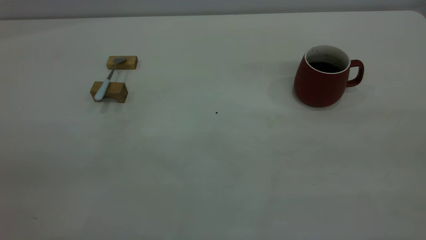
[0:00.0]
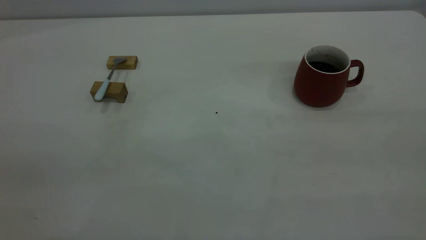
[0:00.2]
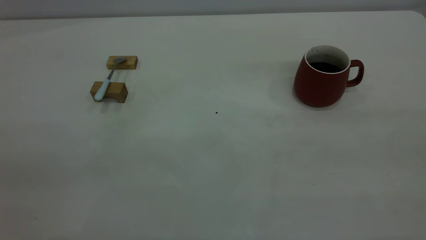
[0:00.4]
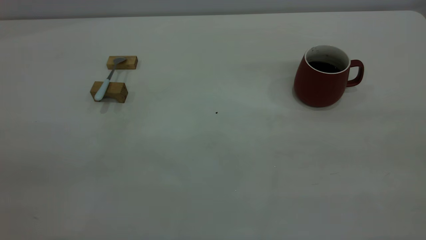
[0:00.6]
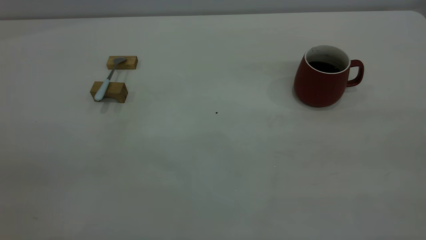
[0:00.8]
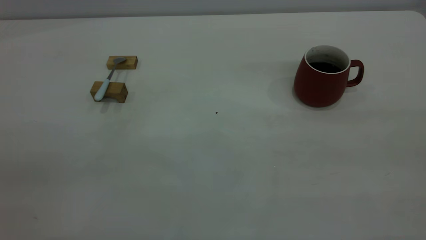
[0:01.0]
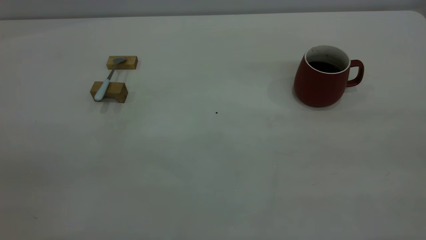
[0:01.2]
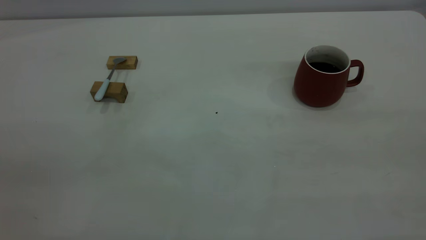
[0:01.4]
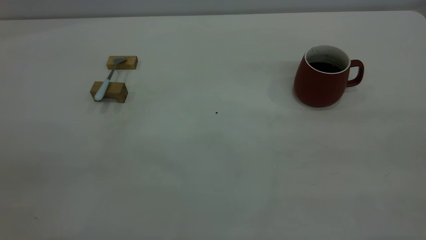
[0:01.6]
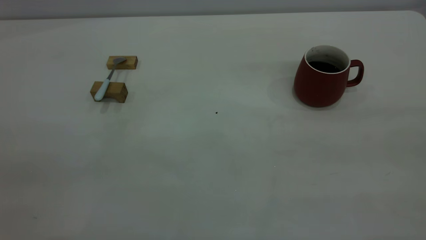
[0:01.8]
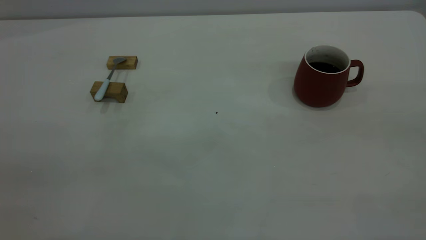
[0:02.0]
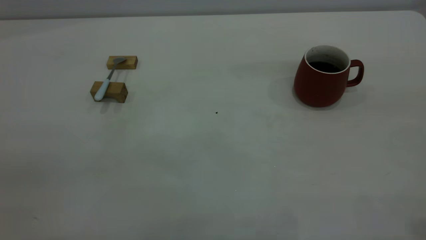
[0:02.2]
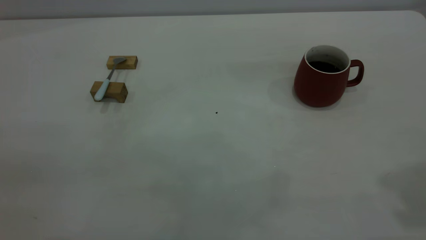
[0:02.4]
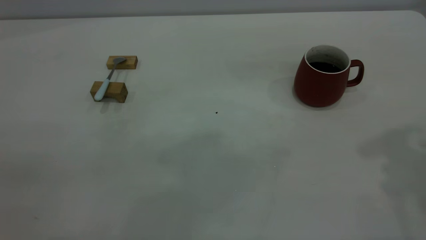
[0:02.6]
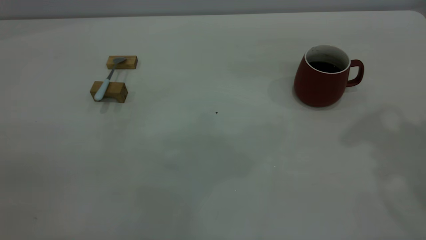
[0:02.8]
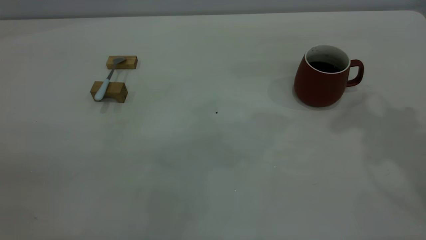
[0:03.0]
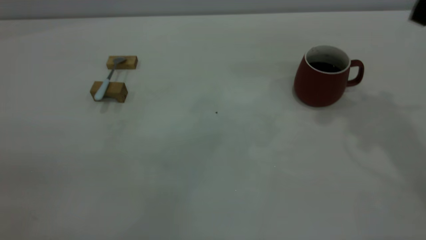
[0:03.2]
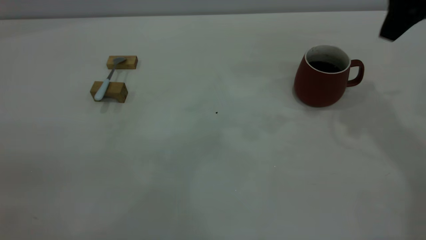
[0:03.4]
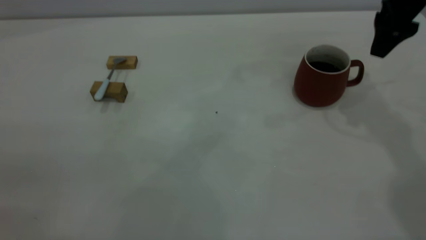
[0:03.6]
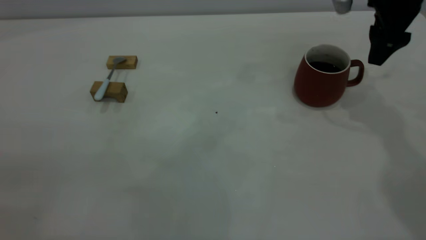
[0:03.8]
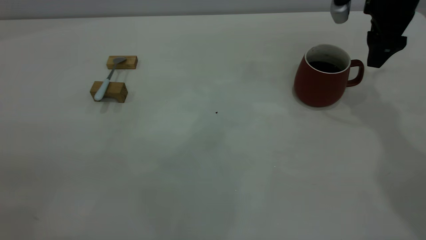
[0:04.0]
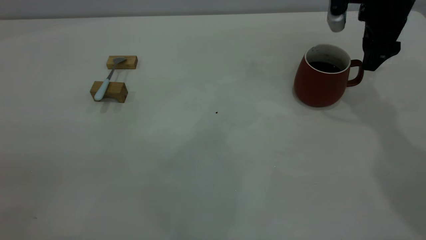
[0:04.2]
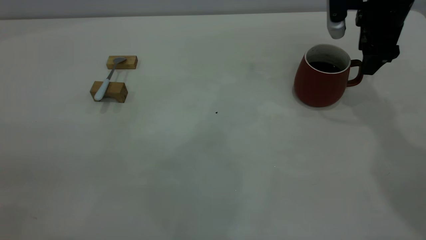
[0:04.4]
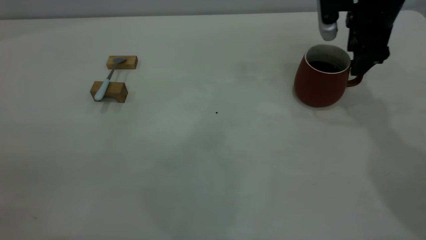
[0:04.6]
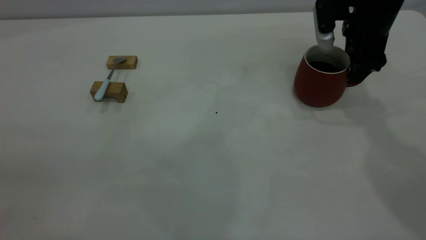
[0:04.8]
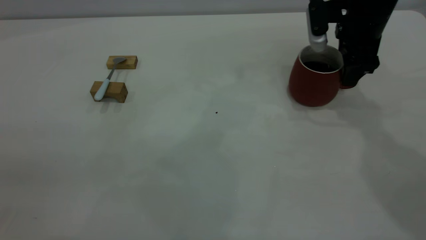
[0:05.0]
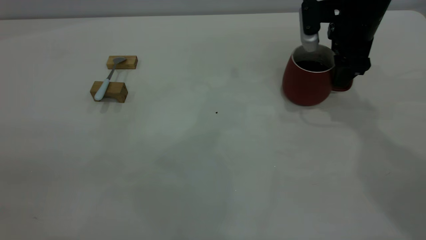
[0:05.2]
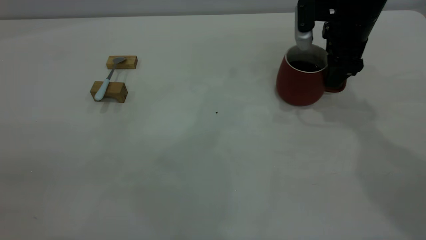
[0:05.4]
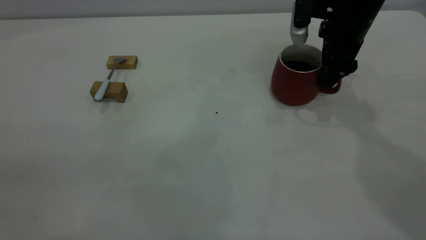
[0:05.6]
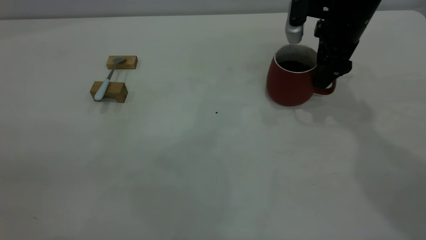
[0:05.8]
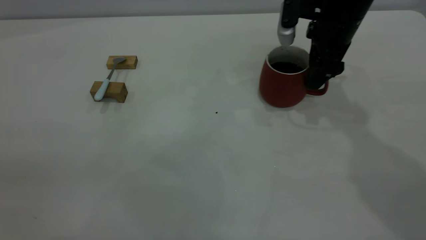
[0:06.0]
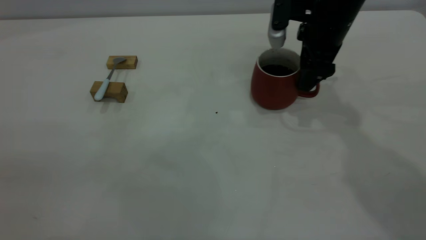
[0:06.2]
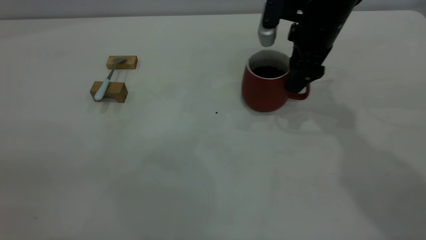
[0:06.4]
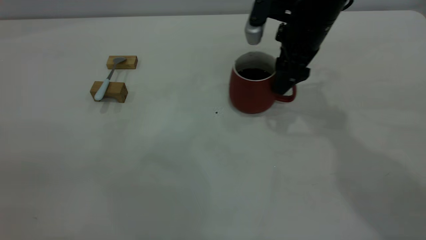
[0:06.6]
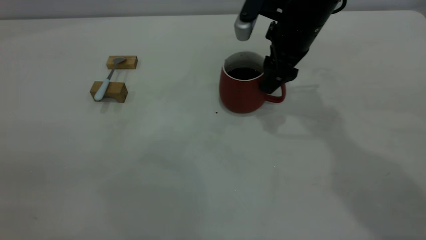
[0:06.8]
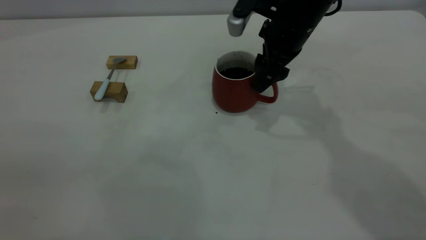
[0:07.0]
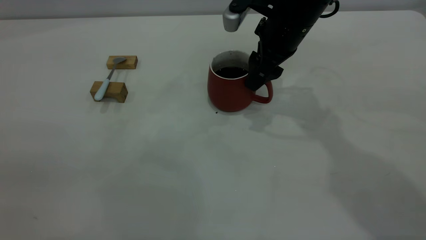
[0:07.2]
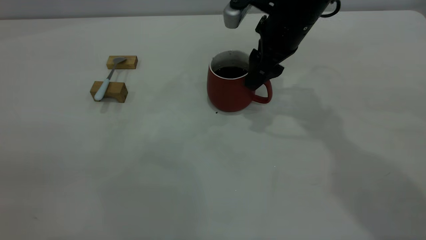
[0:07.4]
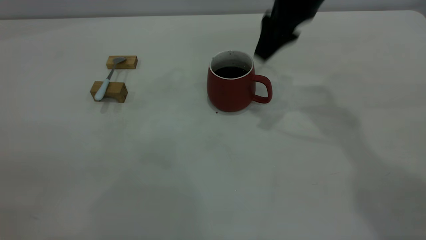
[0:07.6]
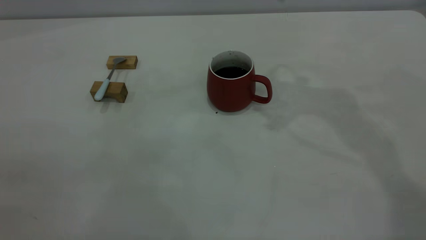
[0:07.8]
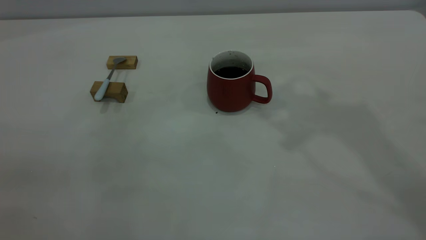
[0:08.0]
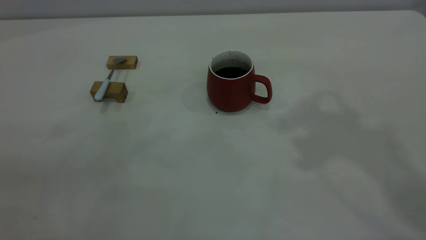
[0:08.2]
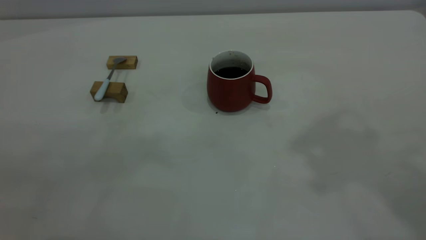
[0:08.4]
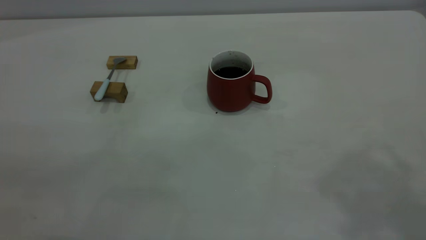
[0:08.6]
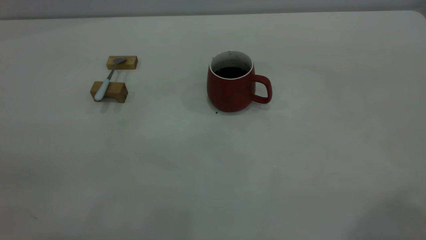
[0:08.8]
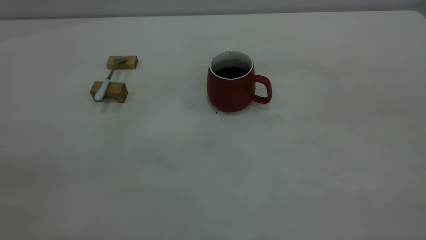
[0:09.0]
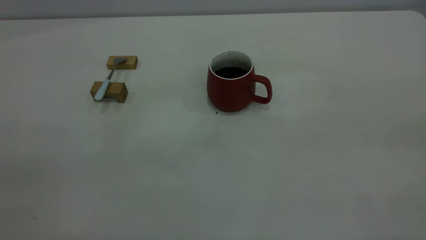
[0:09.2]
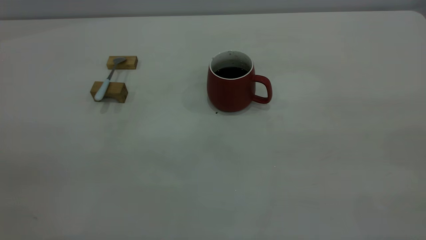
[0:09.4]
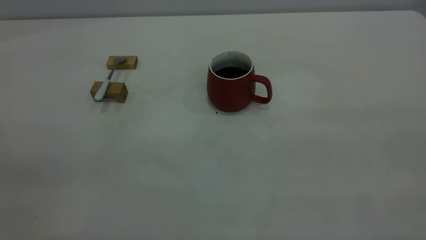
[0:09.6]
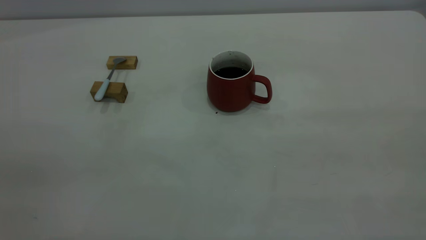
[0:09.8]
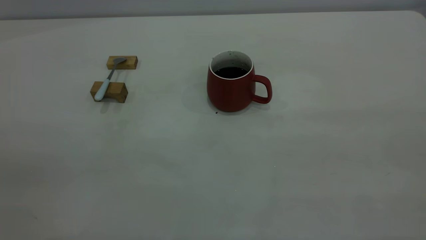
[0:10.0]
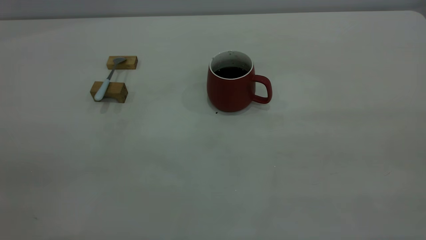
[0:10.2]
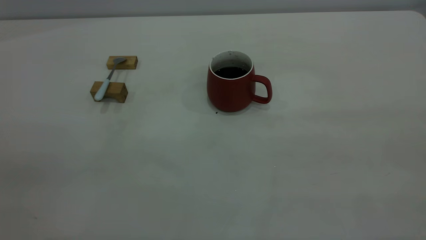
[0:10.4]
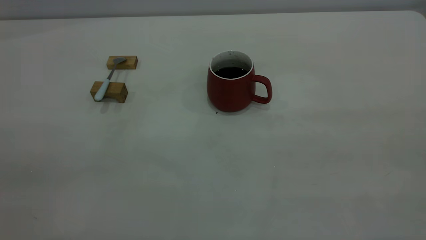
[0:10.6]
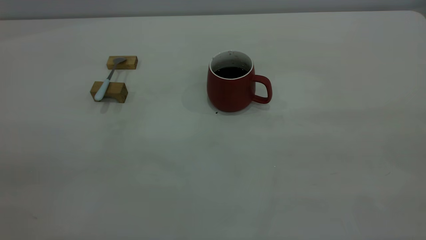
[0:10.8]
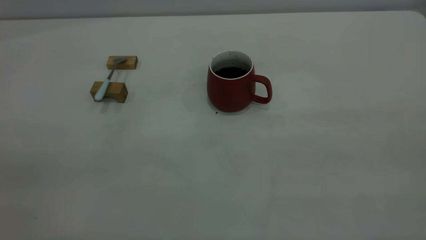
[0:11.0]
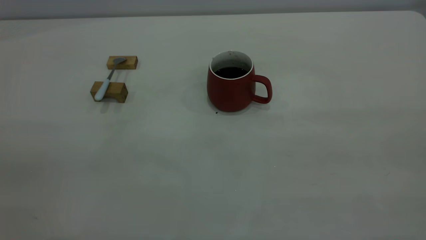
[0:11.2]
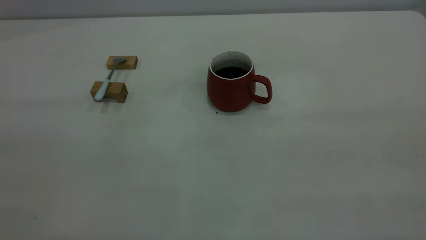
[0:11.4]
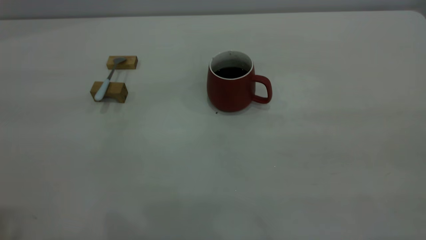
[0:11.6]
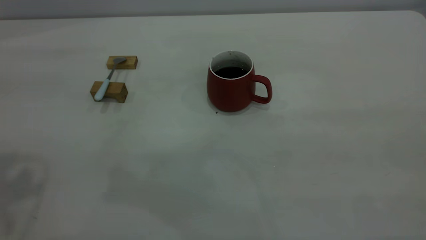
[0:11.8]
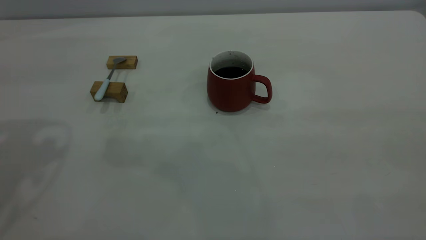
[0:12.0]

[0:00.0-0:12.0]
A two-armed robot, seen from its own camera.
Step, 0:00.0 to 0:07.6: Move the cup with coffee to the center of view.
0:00.0 to 0:01.6: Both grippers stay about where they are.
0:03.0 to 0:04.4: The right gripper moves downward and forward, approximately 20 cm.
0:04.4 to 0:06.0: The right gripper goes approximately 5 cm to the left.
0:06.0 to 0:07.6: The right gripper is displaced upward by roughly 10 cm.
0:07.6 to 0:09.0: The right gripper shifts approximately 40 cm backward and upward.

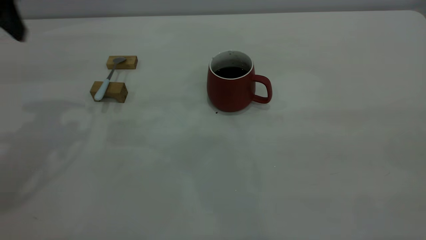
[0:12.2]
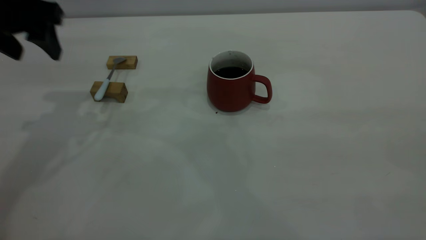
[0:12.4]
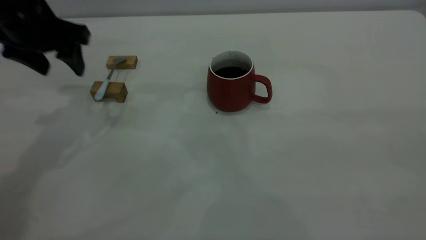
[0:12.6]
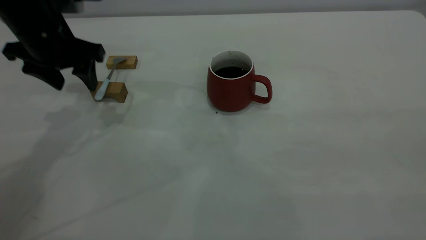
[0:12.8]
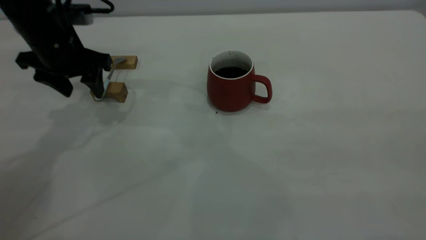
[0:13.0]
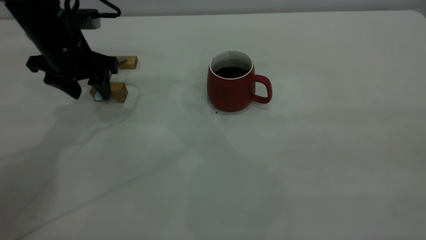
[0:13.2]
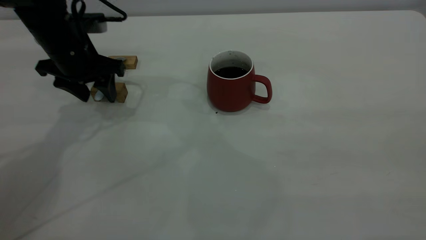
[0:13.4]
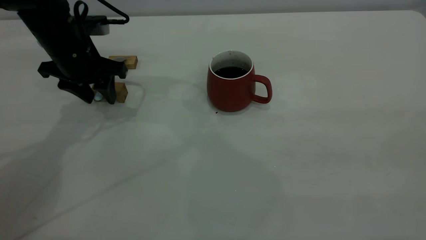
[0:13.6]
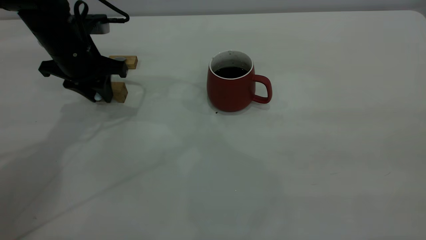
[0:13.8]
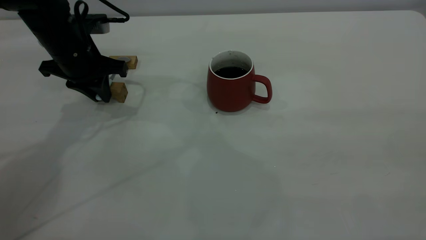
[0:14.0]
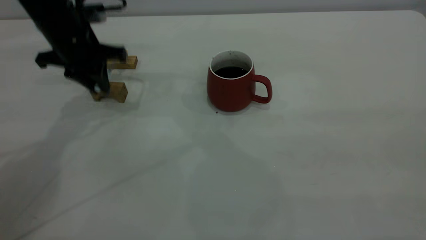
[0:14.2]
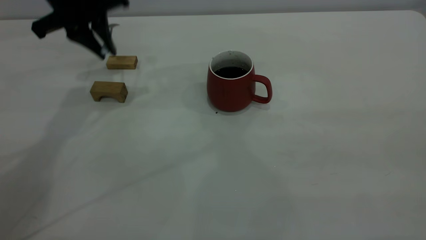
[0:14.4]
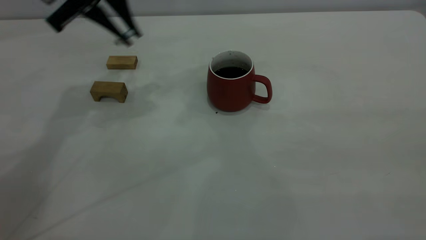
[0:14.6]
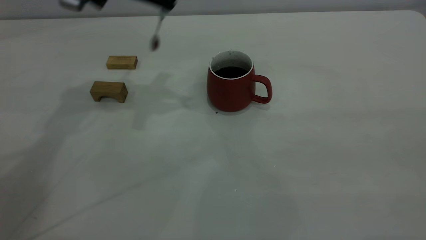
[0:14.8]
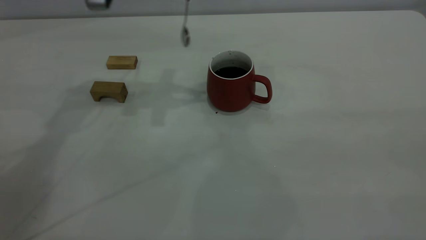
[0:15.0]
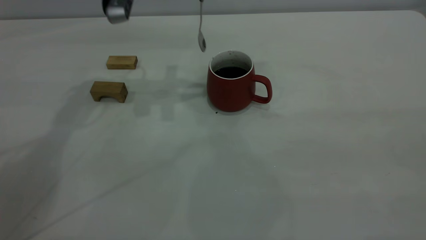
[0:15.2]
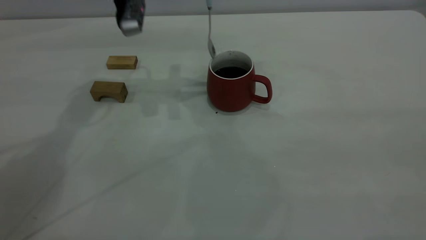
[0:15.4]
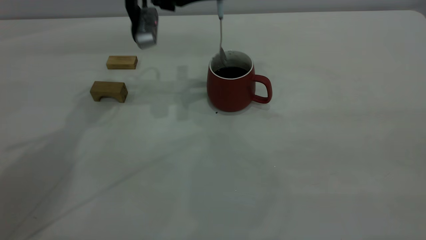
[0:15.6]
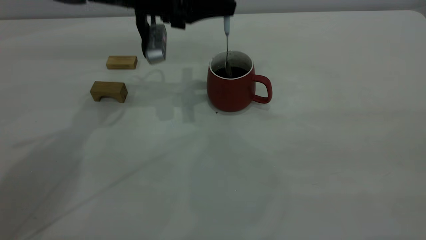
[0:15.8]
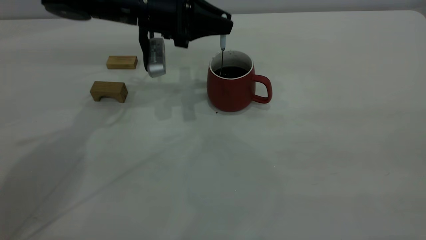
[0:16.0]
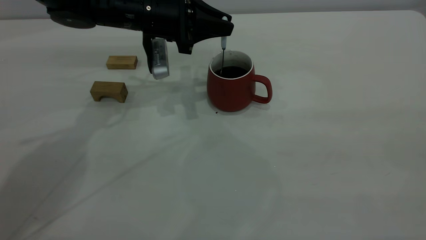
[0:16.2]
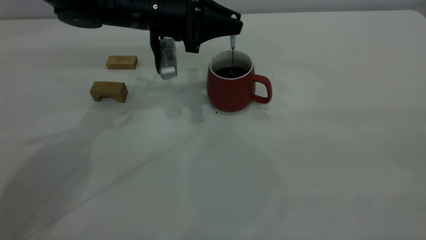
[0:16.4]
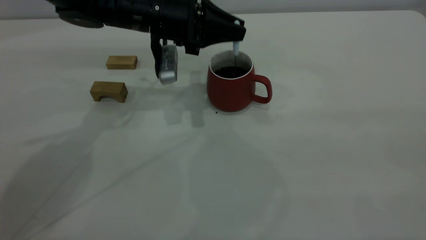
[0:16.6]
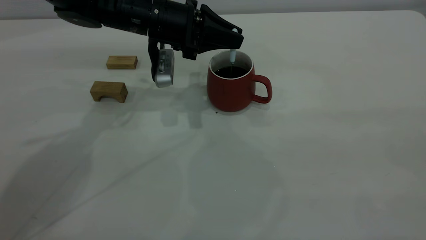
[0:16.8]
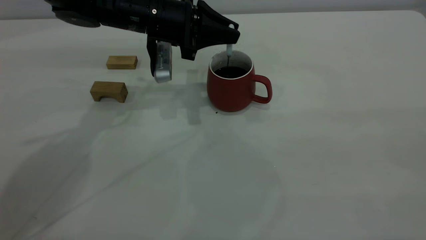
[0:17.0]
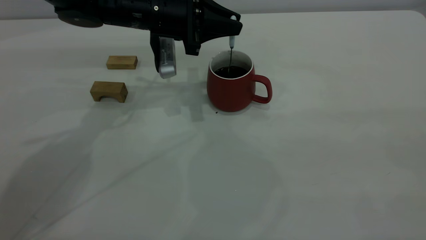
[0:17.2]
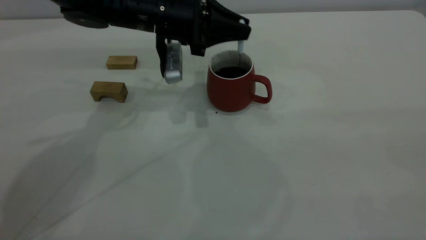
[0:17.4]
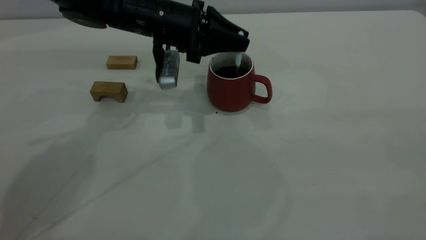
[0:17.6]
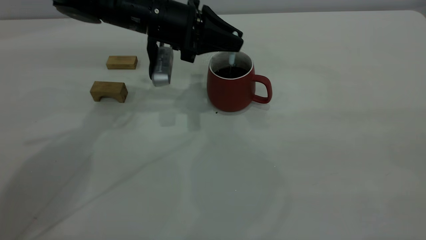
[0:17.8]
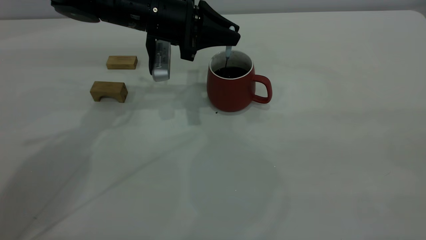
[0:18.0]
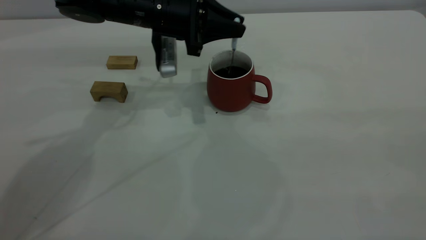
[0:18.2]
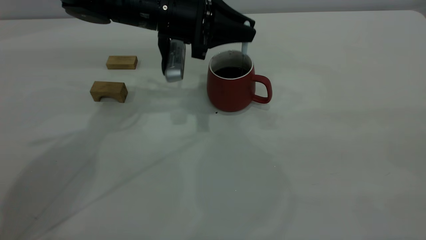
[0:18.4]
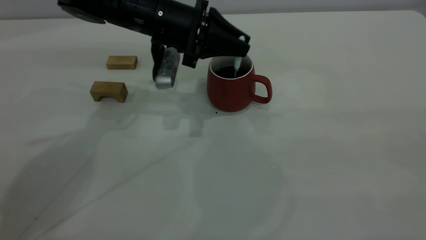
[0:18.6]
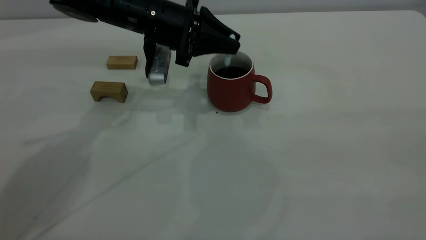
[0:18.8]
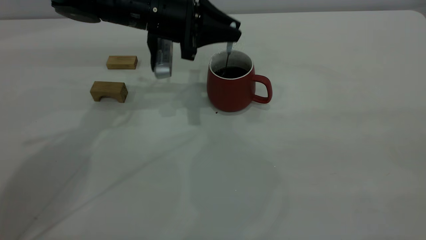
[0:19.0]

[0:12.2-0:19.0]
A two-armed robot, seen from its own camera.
Step, 0:12.2 to 0:14.4: Pick up the spoon.
0:12.2 to 0:13.6: The left gripper heads downward and forward, covering about 20 cm, and closes its fingers.
0:13.6 to 0:15.0: The left gripper is displaced upward and to the right by roughly 15 cm, and closes.
0:15.0 to 0:16.2: The left gripper shifts roughly 15 cm downward.
0:16.2 to 0:19.0: The grippers make only small movements.
